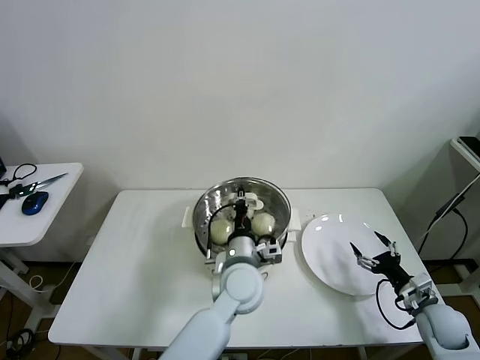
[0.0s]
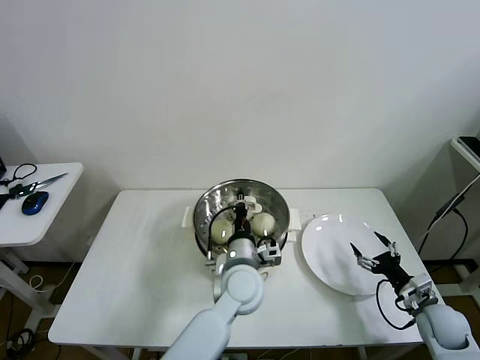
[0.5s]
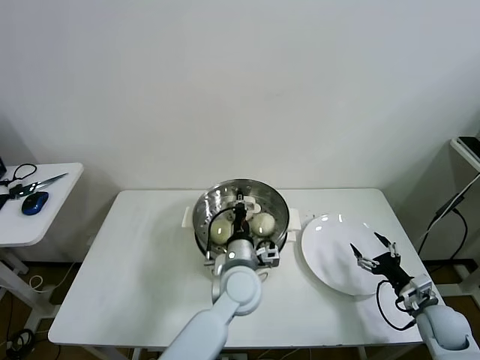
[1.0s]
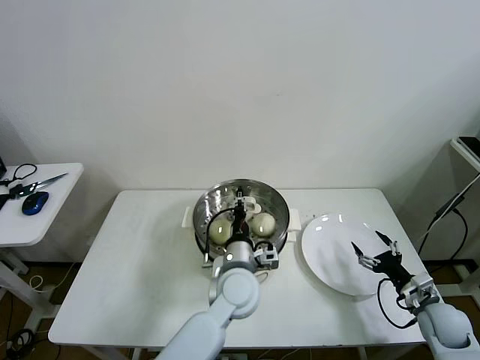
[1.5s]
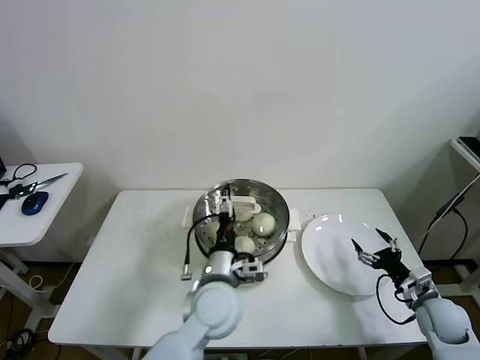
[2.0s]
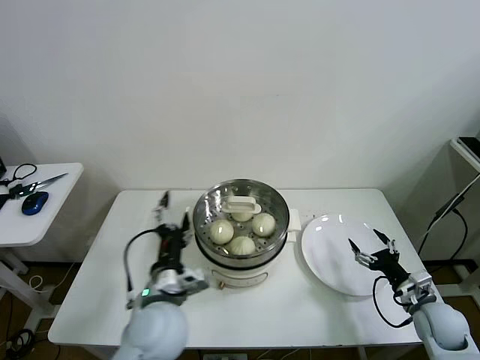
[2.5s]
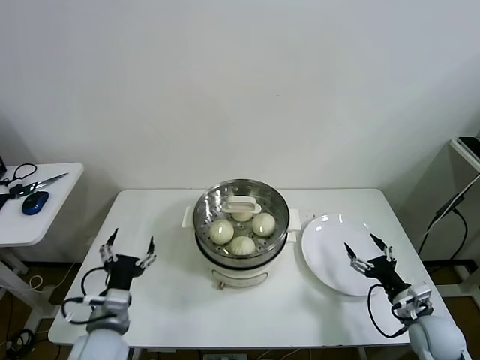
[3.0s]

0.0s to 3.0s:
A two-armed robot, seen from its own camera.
Task of the whole recording: take steamed baozi put them in steamer then cover it.
0.0s to 1.5s: There are only small adjustments of the grippers.
1.5s to 3.0s: The left gripper goes approximately 25 cm to the left and backward, and opens its fingers.
